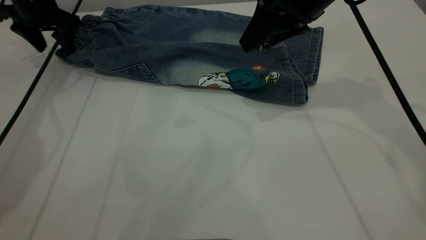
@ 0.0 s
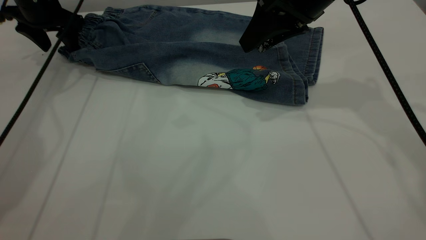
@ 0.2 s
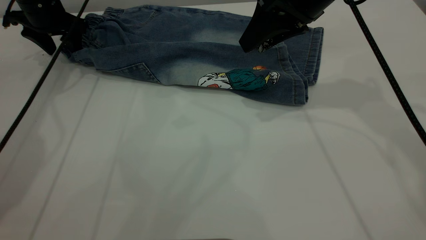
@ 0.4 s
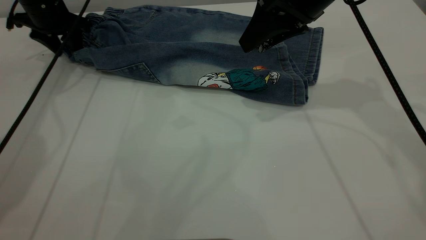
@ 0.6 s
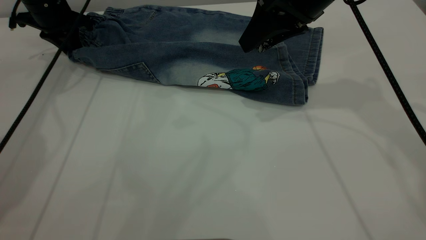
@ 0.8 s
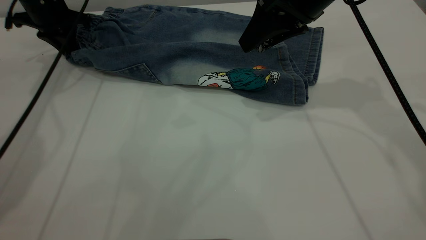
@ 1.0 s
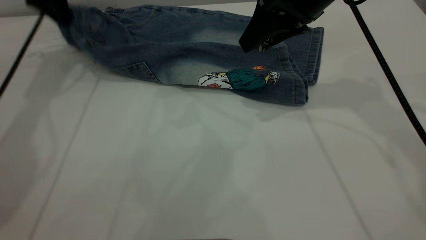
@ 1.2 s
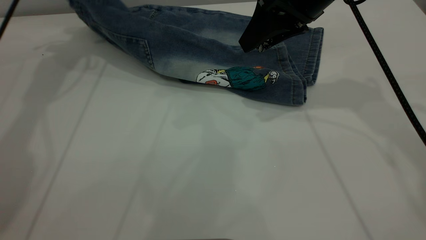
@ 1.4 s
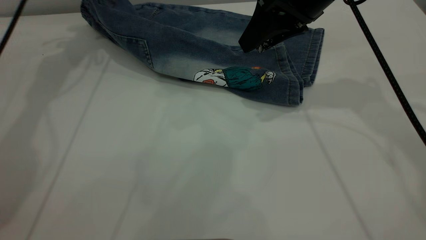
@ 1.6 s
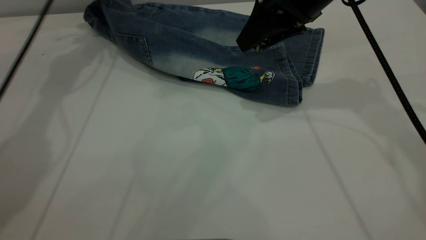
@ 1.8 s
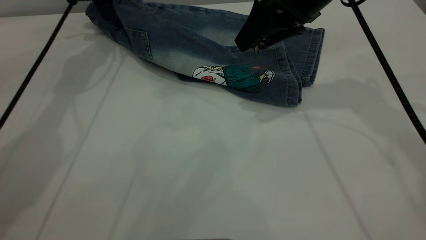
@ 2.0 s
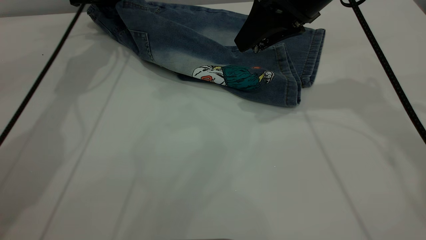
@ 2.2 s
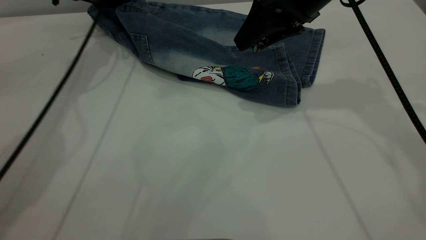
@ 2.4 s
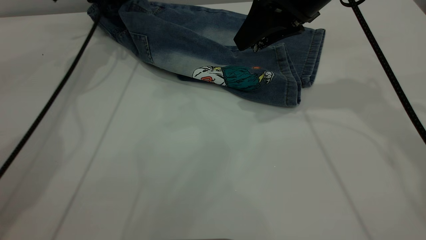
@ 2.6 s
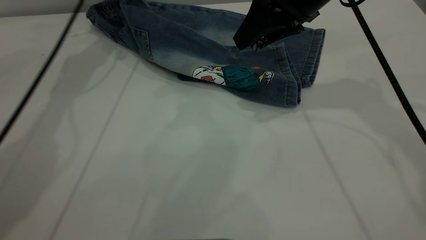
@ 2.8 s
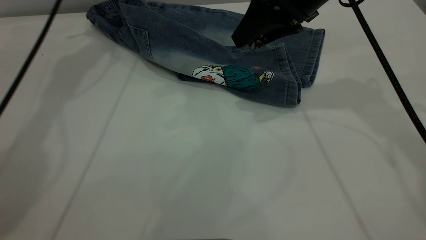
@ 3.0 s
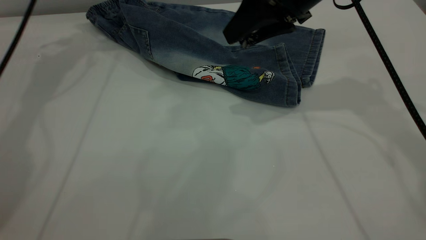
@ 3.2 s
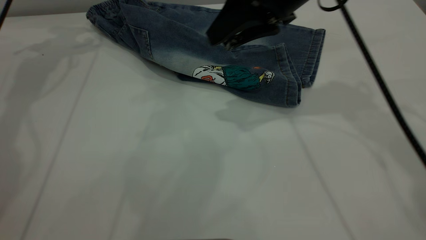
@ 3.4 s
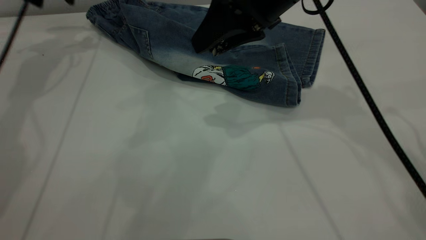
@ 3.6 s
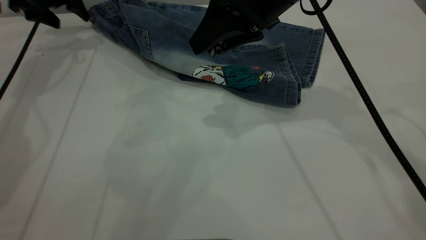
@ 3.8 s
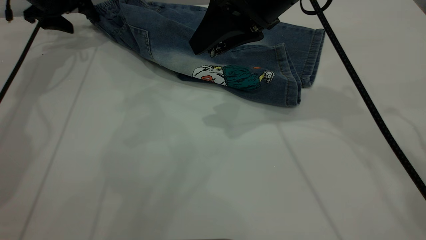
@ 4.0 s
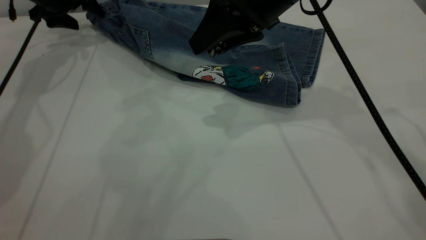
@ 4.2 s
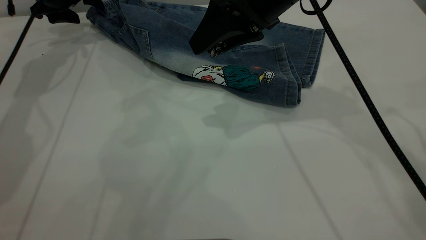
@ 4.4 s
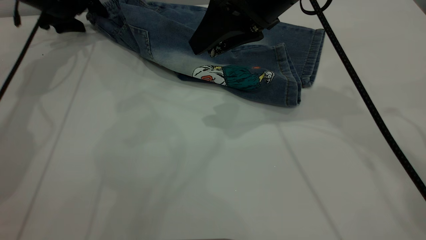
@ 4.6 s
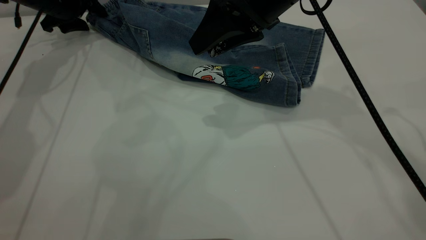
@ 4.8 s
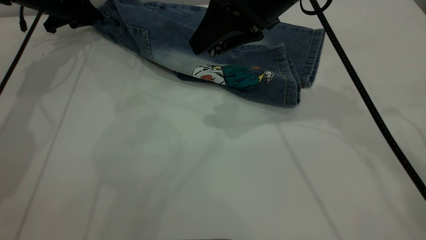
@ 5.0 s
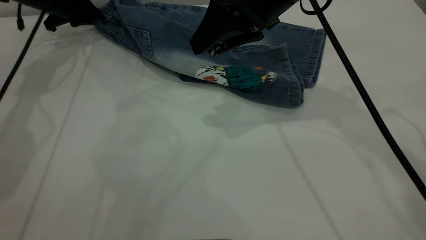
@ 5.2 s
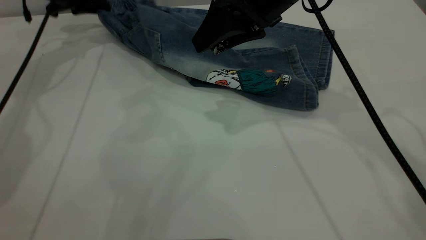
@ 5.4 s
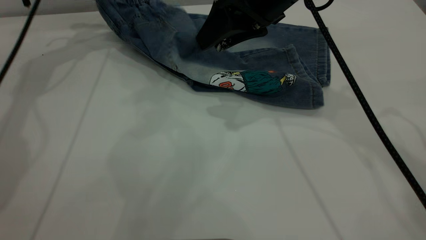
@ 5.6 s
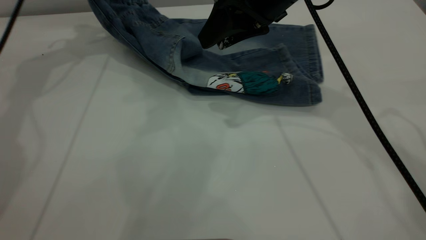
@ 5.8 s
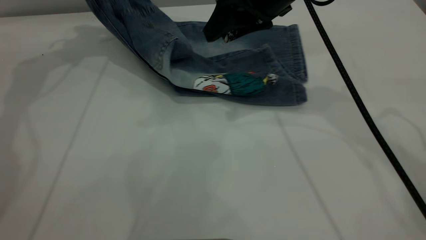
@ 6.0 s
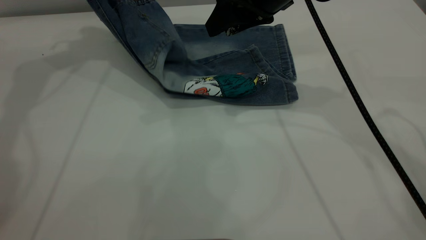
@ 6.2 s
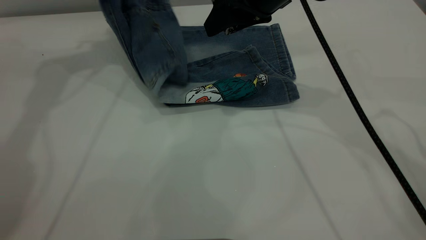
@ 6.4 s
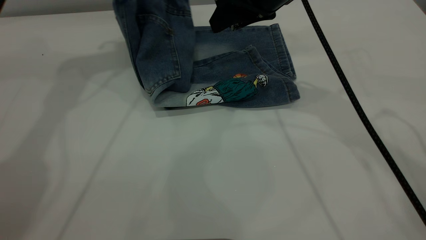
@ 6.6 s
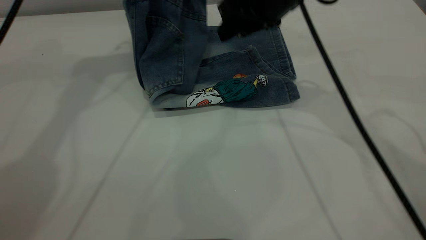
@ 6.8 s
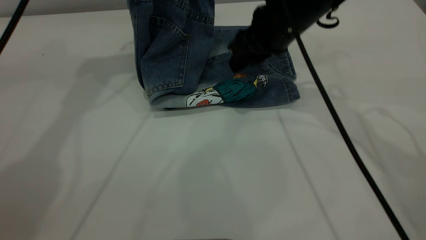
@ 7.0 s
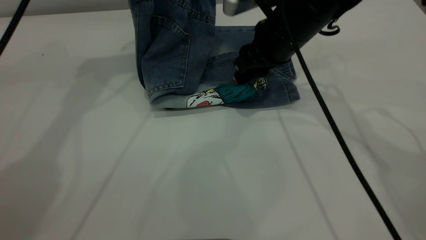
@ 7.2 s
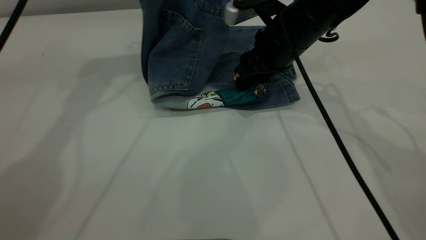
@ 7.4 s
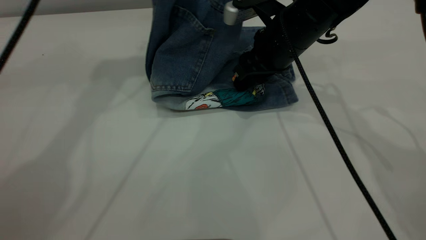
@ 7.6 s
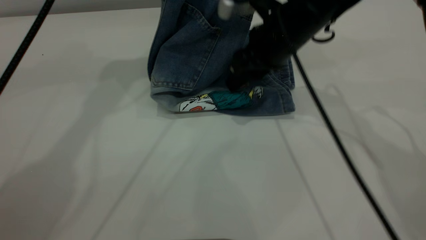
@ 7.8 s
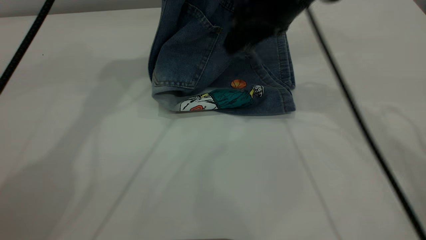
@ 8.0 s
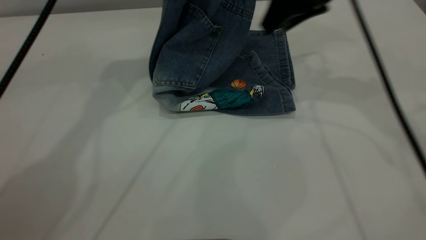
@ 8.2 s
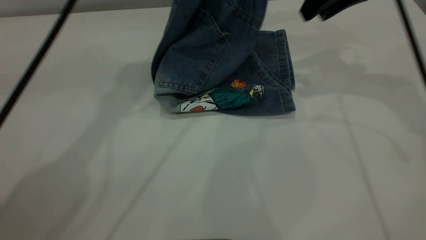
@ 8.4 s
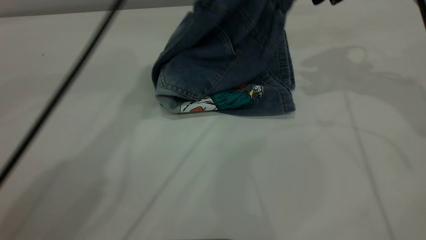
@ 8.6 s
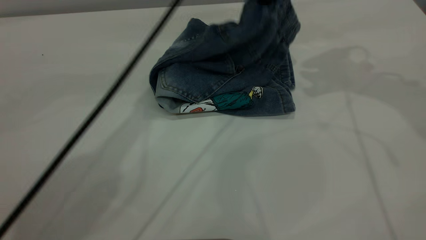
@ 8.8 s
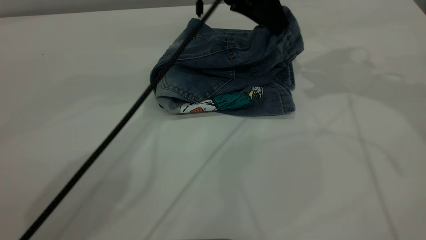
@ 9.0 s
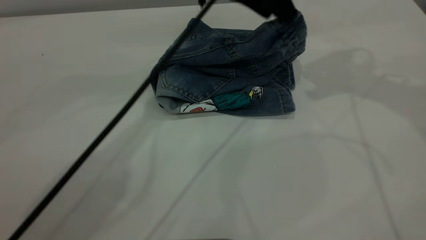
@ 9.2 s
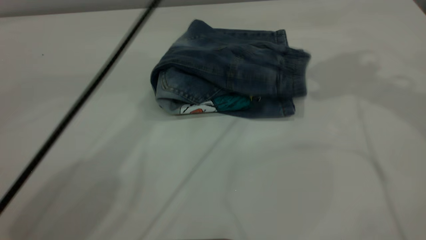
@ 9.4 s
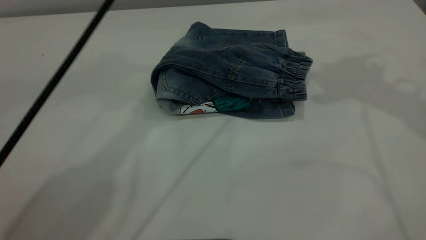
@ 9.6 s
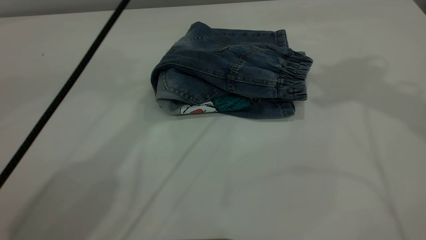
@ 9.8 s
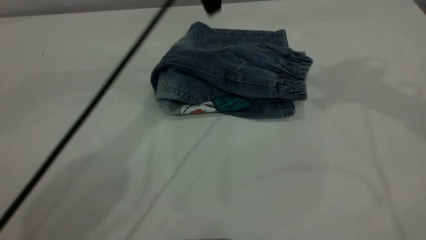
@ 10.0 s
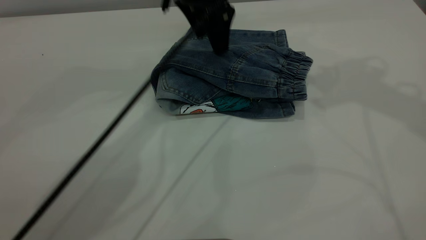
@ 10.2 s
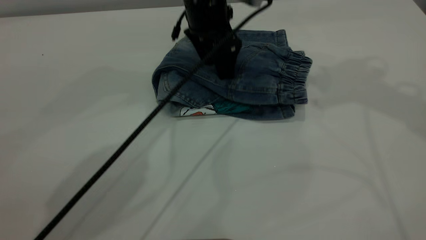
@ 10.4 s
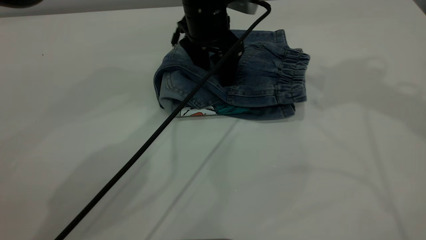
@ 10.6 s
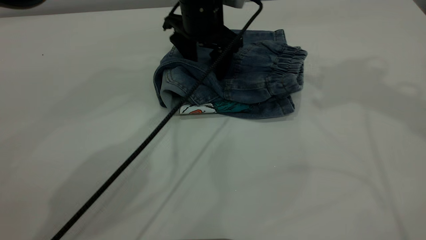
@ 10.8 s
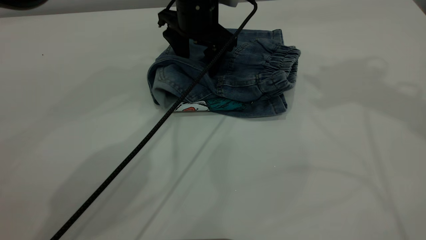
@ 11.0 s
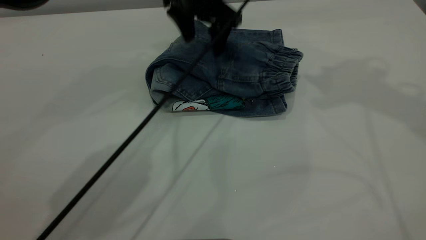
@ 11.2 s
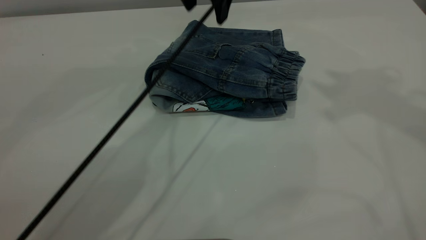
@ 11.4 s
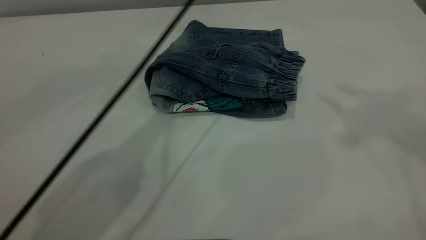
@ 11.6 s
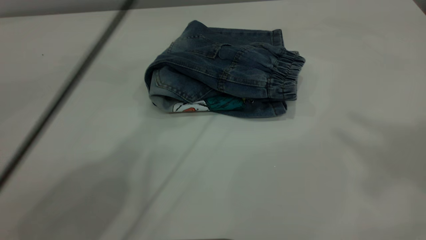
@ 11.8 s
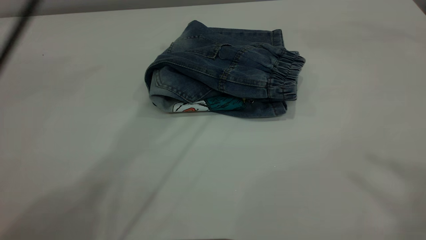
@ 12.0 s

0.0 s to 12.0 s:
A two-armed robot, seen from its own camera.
Step, 0.0 to 9.8 s: Fold the pants from left to right.
0.0 to 1.6 s: The left gripper travels upward by some 10 cm, and closes its fingers.
1.6 to 3.0 s: The left gripper moves approximately 10 cm downward and comes back, and opens.
3.0 to 4.4 s: The right gripper ends up some 5 cm from where it was. The left gripper shifts roughly 15 cm downward and to the left.
4.4 to 6.0 s: The left gripper travels upward by some 15 cm, and closes.
6.0 to 7.6 s: The right gripper is displaced downward by approximately 10 cm, while the left gripper is displaced to the right by some 20 cm.
7.6 to 9.0 s: The right gripper travels upward and to the right by about 20 cm. The left gripper goes about 15 cm downward and to the right, and opens up.
9.0 to 10.4 s: The left gripper moves some 15 cm upward and comes back, and opens its fingers. The right gripper travels upward by some 10 cm.
10.4 to 12.0 s: The left gripper goes roughly 30 cm upward. The right gripper moves backward and upward, approximately 25 cm.
